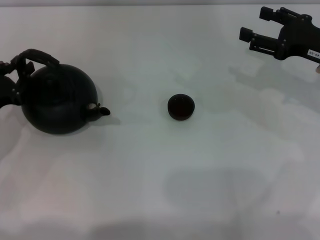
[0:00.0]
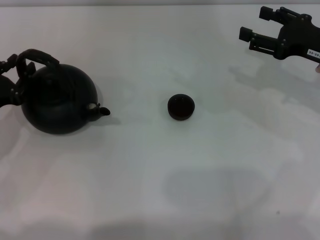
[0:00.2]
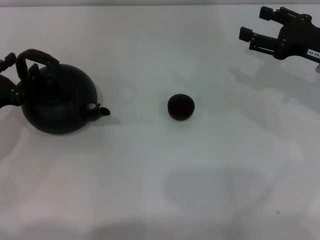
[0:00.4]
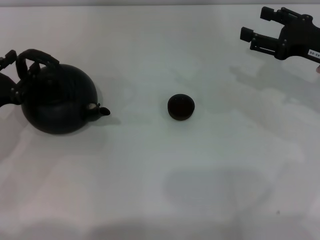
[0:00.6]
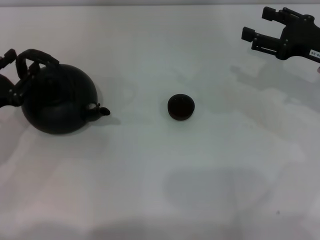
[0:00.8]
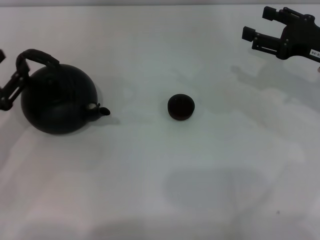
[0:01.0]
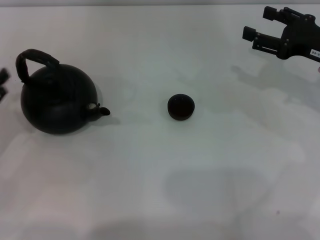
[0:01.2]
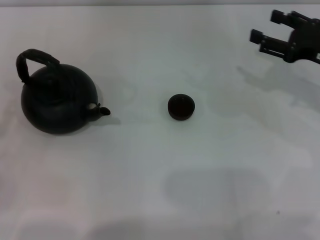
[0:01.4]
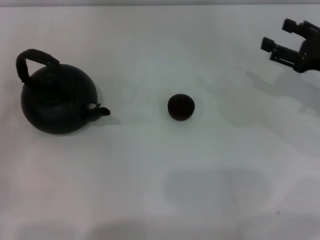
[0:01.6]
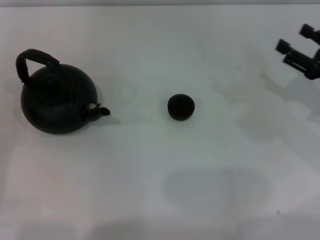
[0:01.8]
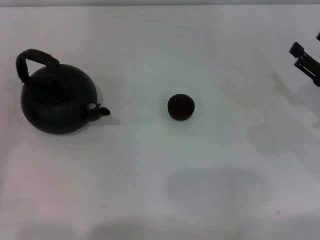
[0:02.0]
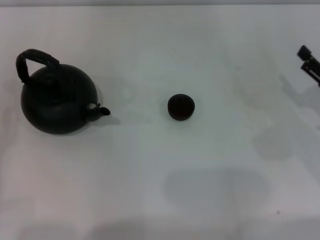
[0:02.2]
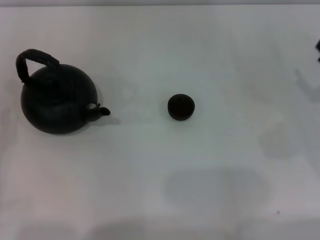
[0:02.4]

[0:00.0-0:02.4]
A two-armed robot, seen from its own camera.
Task of the whole recording: Grasp the handle of the teapot with one hand and pour tea into the teacup.
0:00.0 to 0:01.2: The left gripper shifts approximately 5 cm backward, and opens up.
0:01.2 to 0:02.4: The right gripper is displaced backward, downward and to the right by approximately 10 cm.

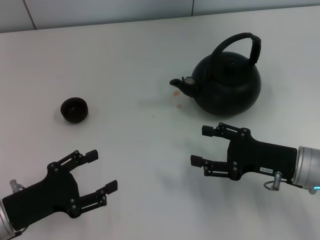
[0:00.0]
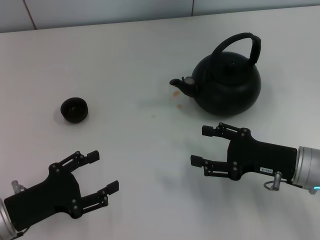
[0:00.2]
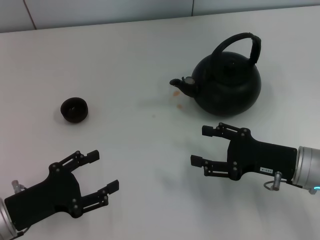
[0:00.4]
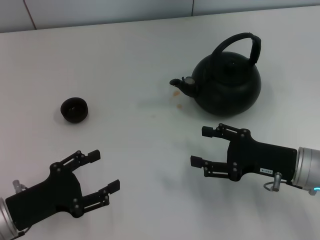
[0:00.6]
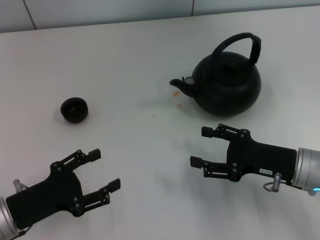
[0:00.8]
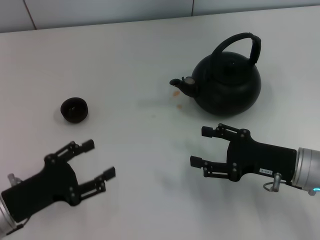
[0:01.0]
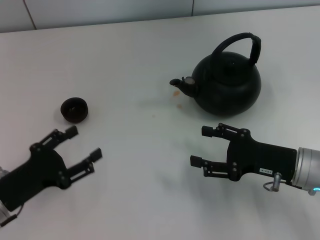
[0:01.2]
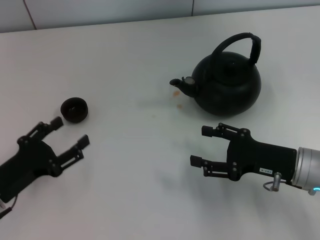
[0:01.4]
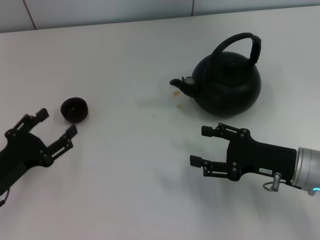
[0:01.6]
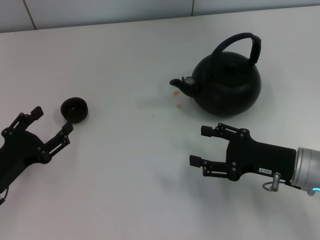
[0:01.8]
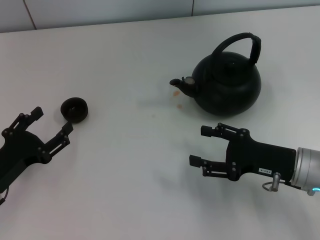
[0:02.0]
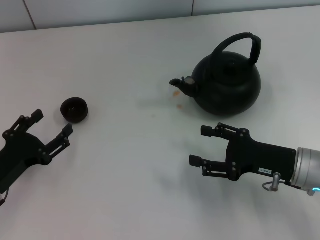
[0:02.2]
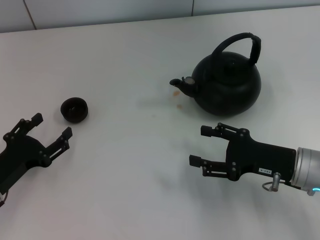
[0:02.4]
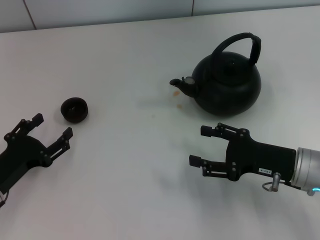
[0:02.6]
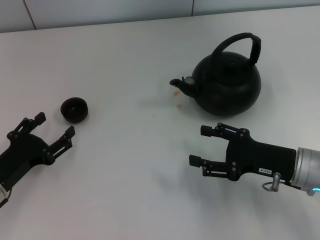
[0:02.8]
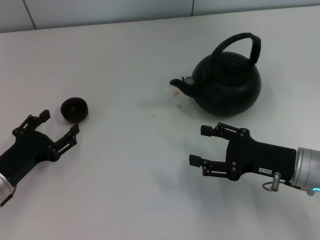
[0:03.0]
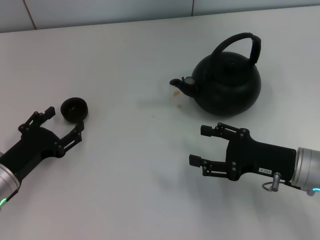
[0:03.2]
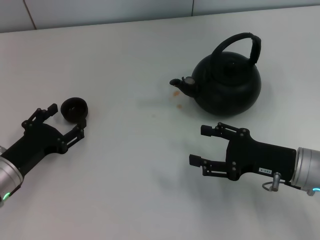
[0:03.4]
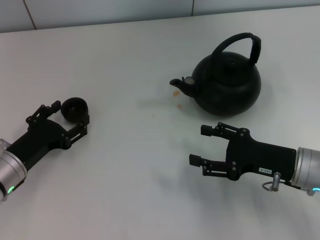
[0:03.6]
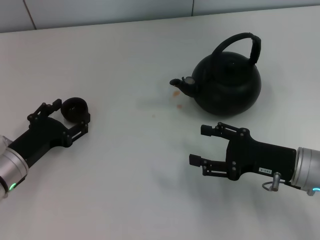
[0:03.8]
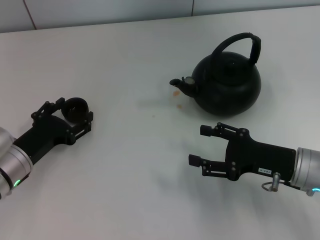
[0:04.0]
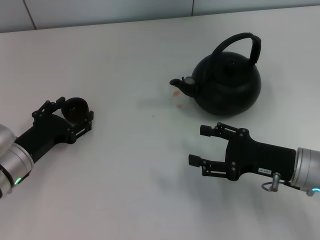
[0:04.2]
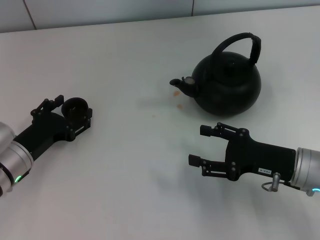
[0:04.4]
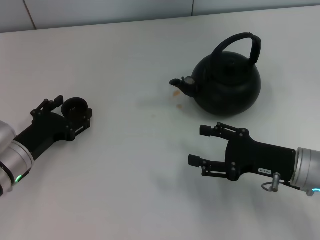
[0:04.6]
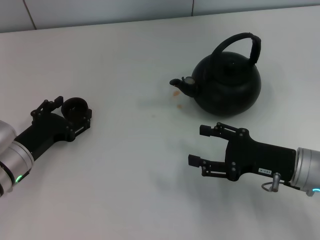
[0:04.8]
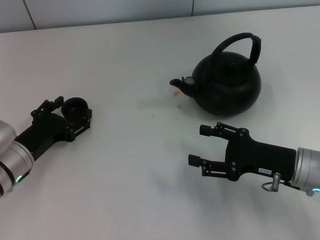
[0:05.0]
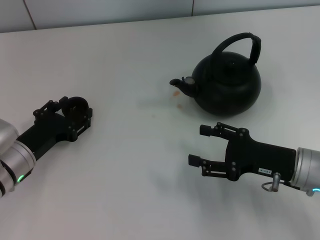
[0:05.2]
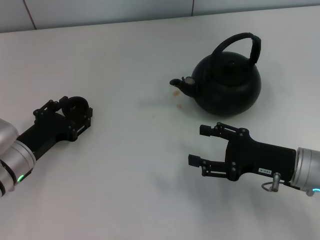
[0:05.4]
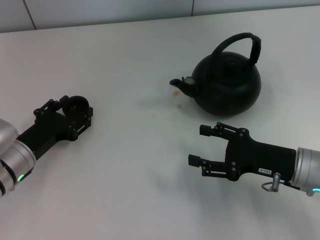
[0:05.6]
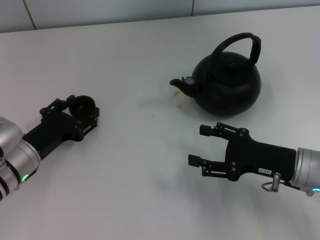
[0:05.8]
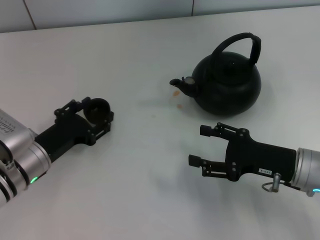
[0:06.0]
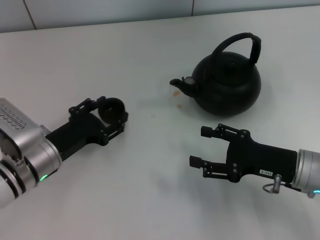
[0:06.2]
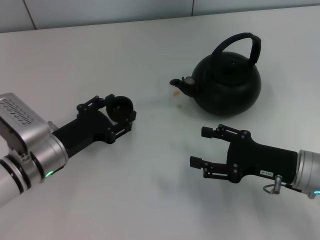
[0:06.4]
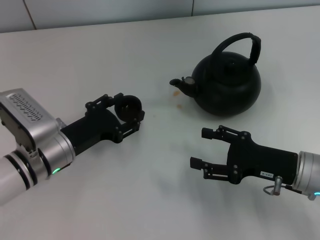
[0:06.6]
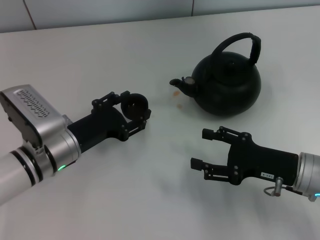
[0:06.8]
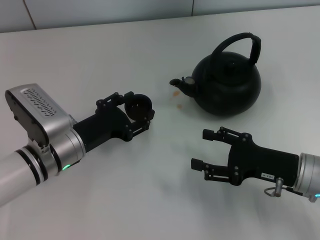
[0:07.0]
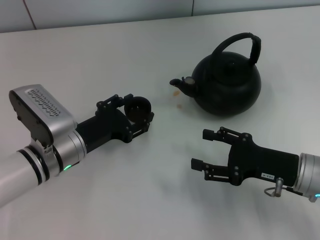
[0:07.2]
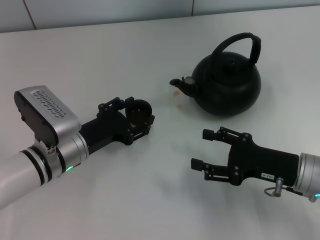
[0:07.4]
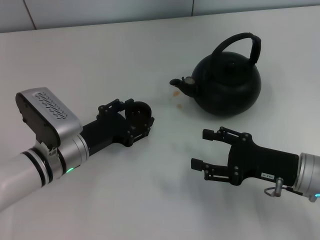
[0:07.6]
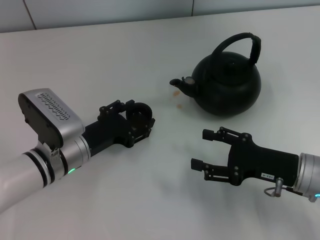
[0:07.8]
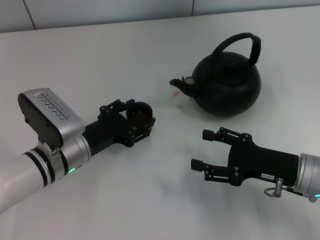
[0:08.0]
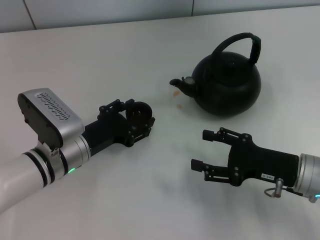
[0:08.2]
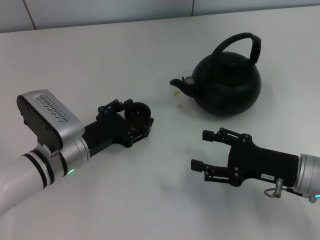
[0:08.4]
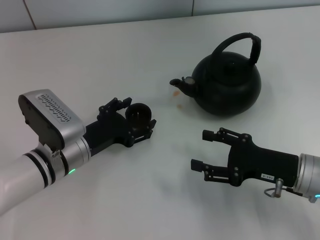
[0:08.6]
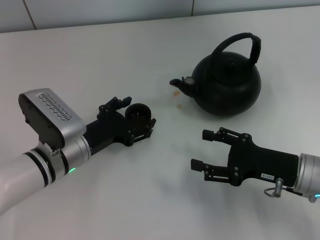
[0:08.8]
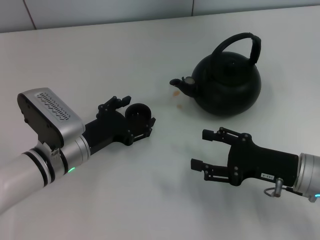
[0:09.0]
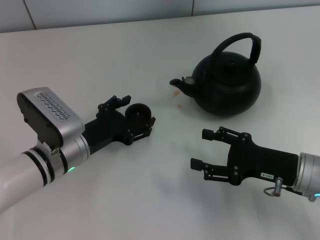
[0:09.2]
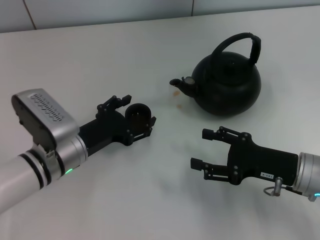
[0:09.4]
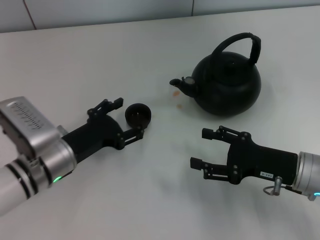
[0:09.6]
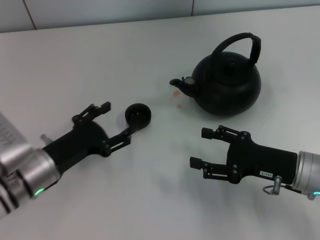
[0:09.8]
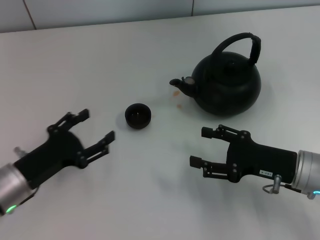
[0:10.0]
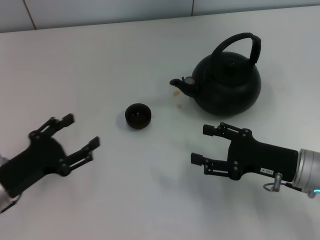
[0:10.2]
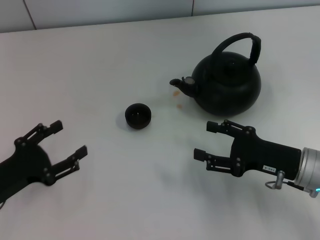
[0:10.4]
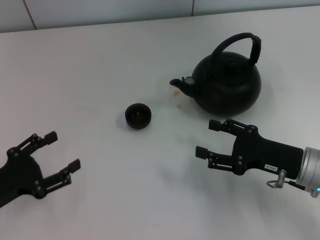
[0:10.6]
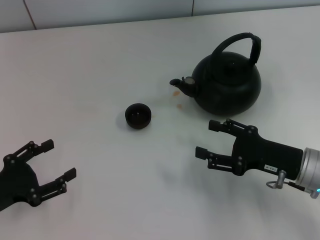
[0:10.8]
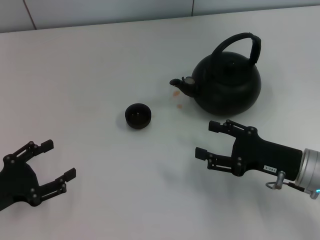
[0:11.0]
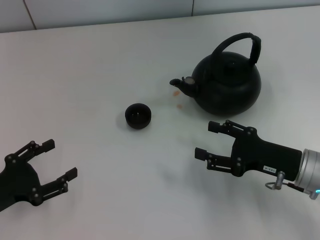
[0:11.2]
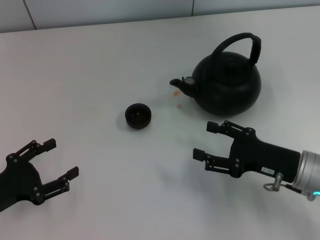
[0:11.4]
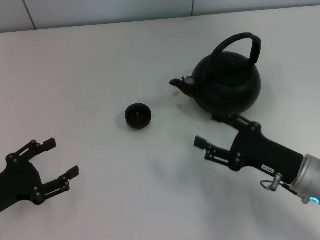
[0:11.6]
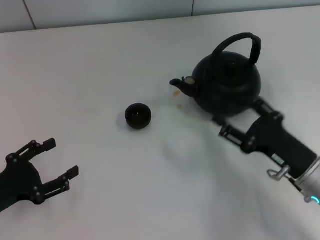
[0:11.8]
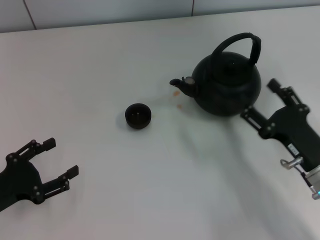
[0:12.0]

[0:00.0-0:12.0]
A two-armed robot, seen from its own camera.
Task of the whole recording: Grasp the handle of the teapot with one hand and pour tea into the teacup.
Step, 0:00.0 to 0:05.8: Pick up the teacup with the left gripper.
Step, 0:06.0 to 0:09.8: Place the teacup in the center of view with the left gripper.
0:01.6 to 0:03.0: The grippers move only a little.
0:03.0 to 0:04.4: The left gripper shifts by about 5 cm.
0:04.4 to 0:06.0: The left gripper closes up.
0:06.0 to 0:07.6: The left gripper goes approximately 5 cm to the right.
0:07.6 to 0:09.0: The left gripper opens its fingers.
0:09.0 to 0:10.4: The left gripper moves to the left and backward, approximately 15 cm.

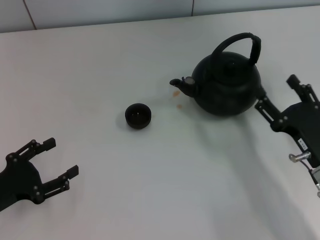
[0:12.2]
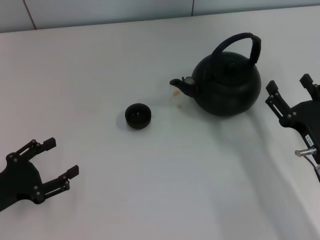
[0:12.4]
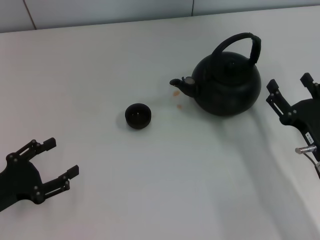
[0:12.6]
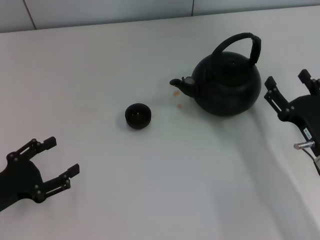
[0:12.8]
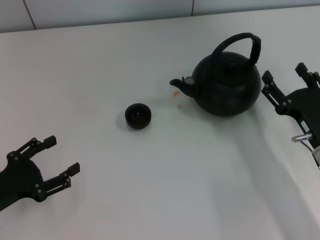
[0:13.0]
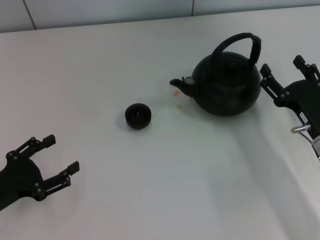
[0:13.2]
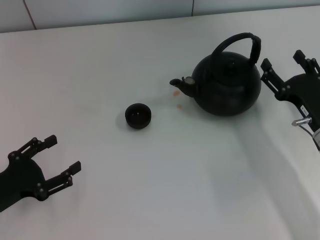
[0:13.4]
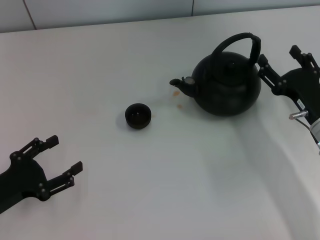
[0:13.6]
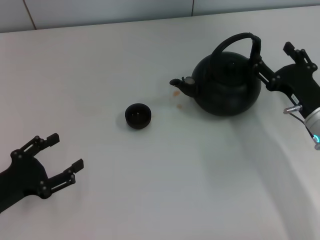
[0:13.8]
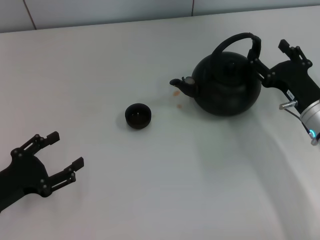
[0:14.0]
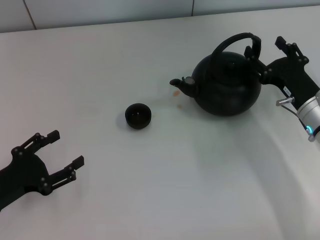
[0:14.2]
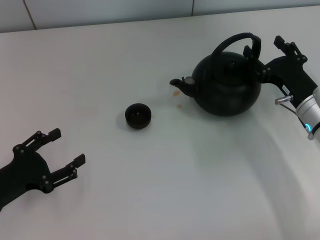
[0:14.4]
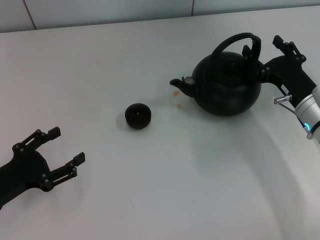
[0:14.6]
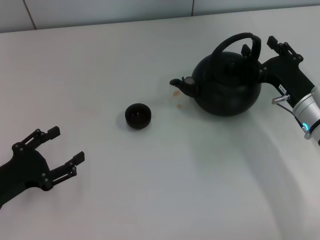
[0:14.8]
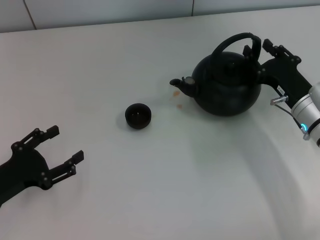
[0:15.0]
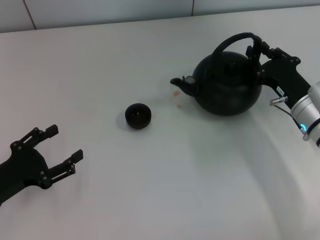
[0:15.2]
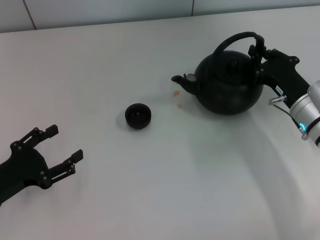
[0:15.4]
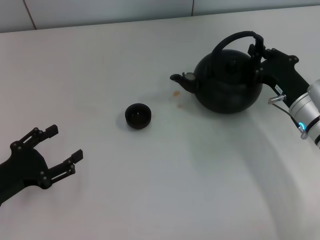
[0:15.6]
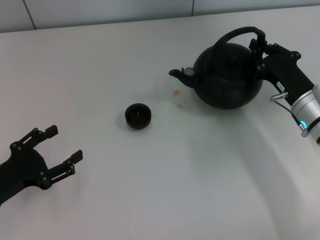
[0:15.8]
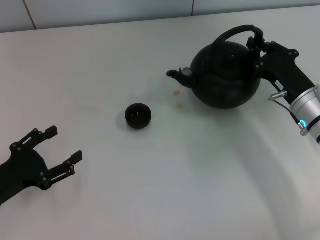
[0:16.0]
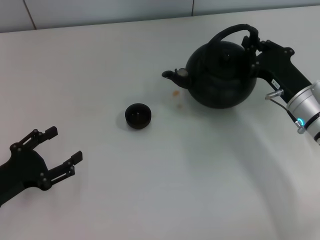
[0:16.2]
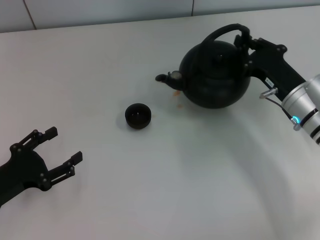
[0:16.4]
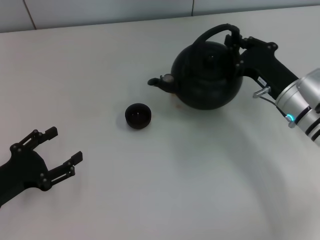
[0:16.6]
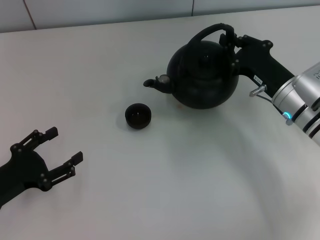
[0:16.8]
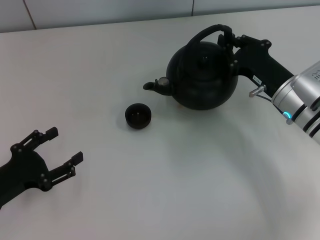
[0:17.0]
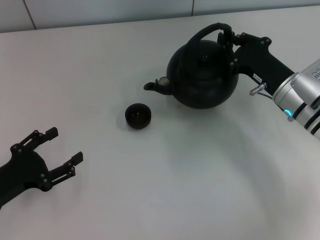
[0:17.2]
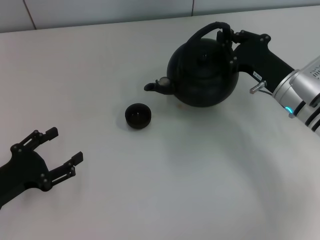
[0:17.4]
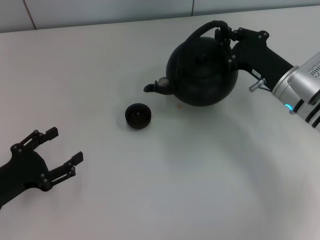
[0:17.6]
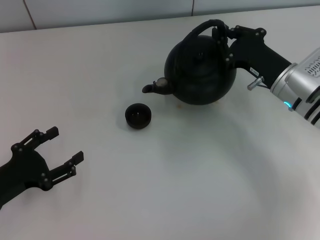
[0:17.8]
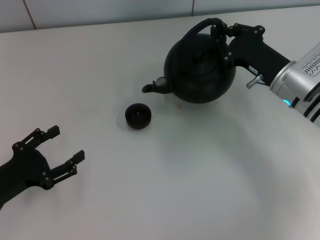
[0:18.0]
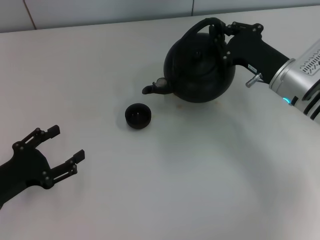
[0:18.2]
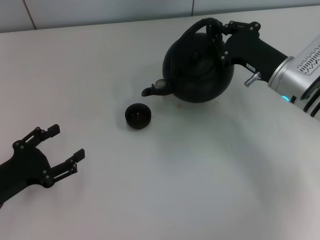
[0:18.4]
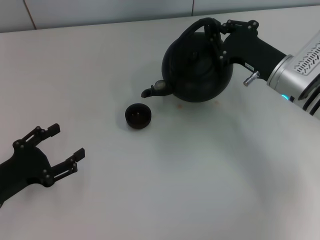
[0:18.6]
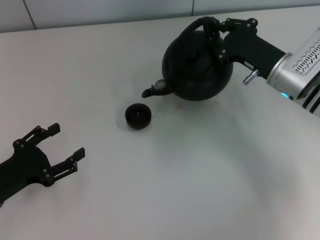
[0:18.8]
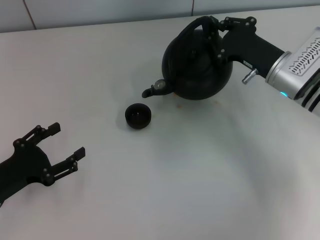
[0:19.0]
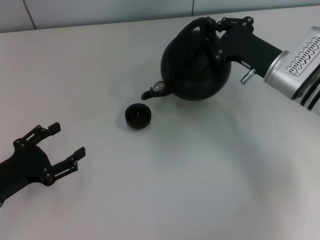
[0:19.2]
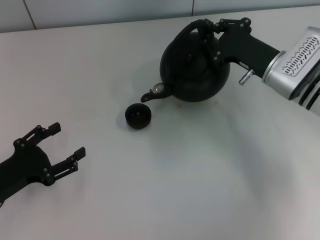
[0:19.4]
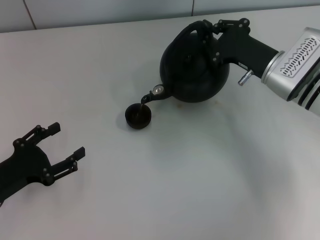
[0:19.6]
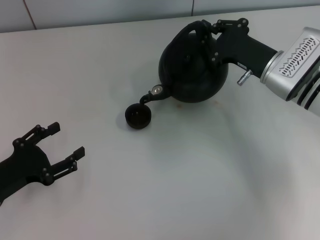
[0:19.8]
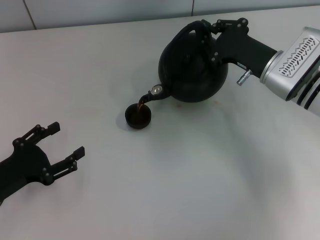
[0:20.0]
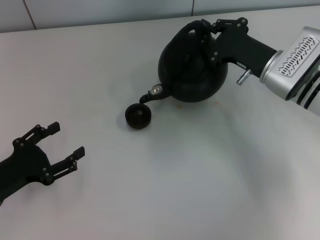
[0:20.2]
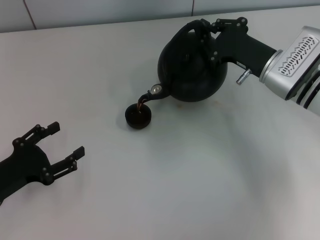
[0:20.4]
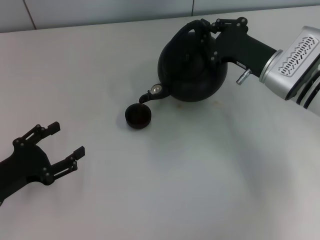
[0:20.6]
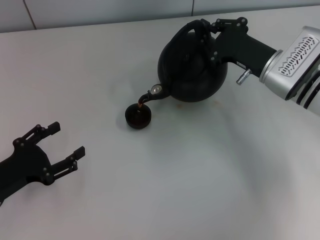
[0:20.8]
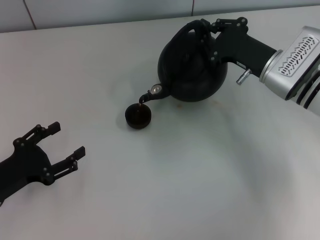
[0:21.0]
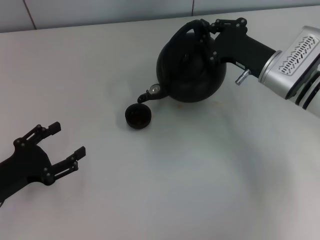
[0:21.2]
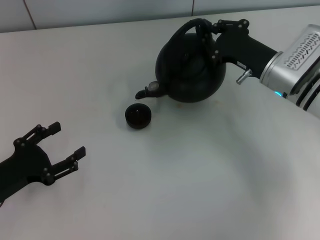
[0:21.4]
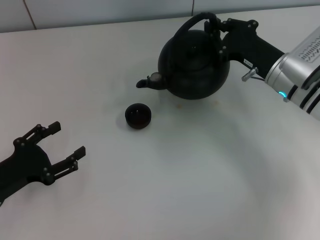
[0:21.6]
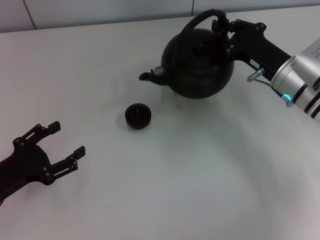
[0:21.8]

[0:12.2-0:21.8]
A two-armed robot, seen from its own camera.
Task of the whole recording: Grasp the handle of the teapot with one hand and pour tea into the teacup.
Step, 0:12.2 to 0:16.2: Pick up the teapot with the right gripper.
0:12.2 to 0:13.8: The right gripper travels forward by approximately 10 cm.
0:13.8 to 0:15.4: The right gripper closes.
0:15.4 to 0:17.0: The grippers stay close to where they were, moving slightly.
0:17.0 to 0:18.6: The grippers make only small movements.
0:18.6 to 0:20.2: The grippers stay close to where they were, moving slightly.
